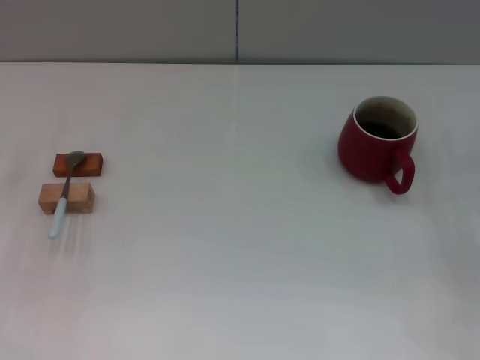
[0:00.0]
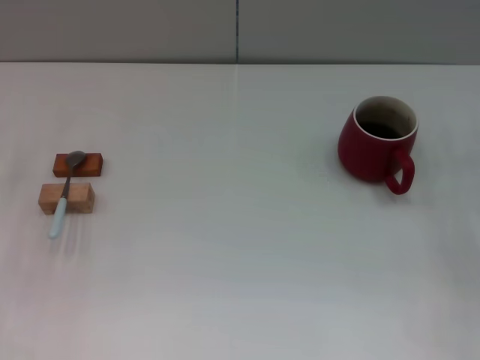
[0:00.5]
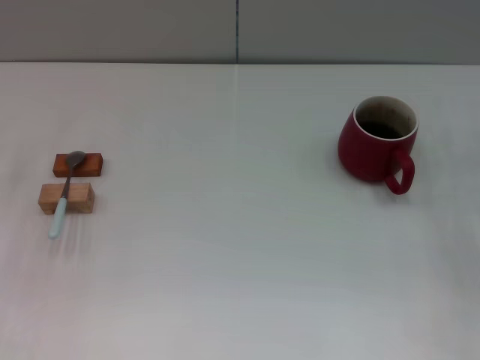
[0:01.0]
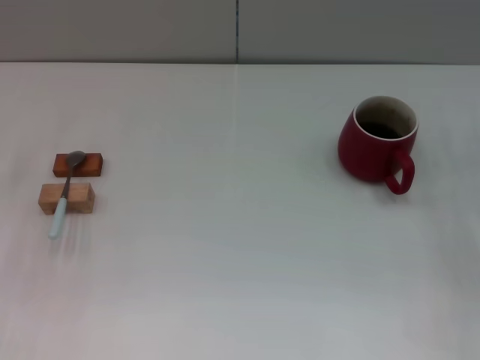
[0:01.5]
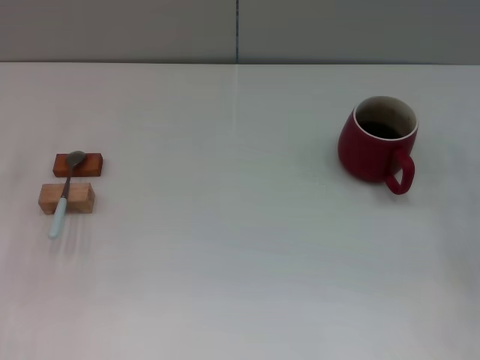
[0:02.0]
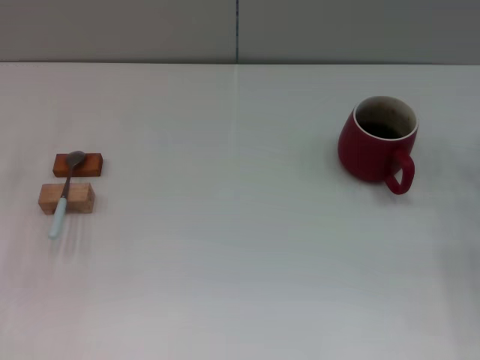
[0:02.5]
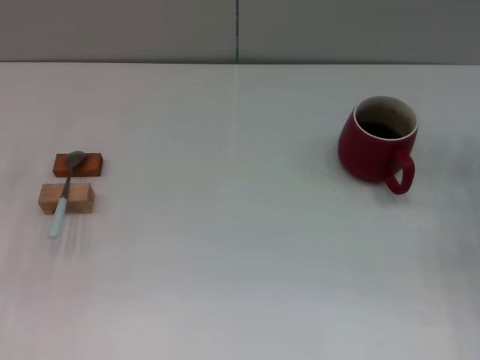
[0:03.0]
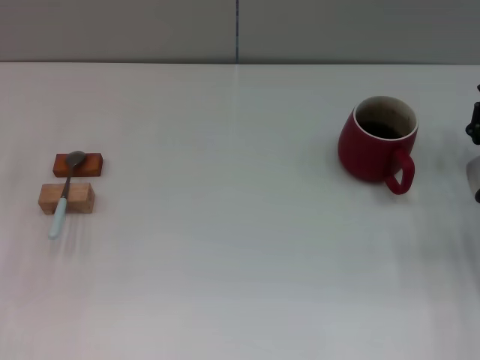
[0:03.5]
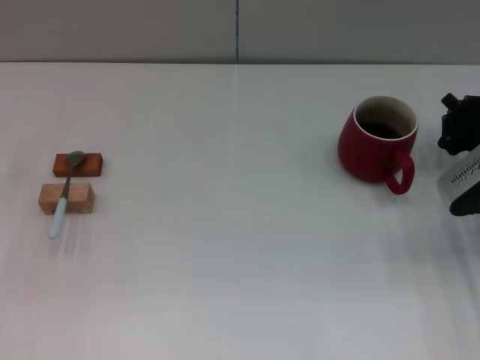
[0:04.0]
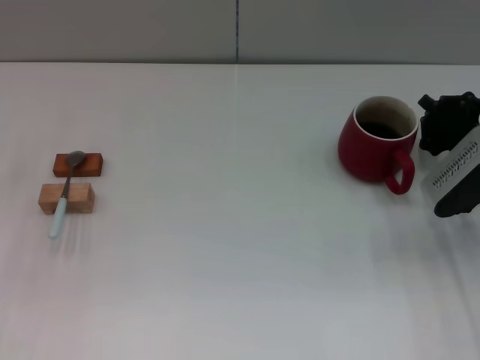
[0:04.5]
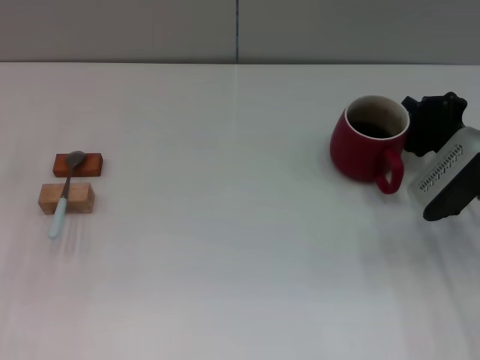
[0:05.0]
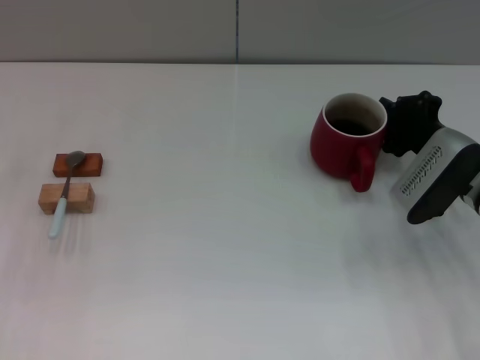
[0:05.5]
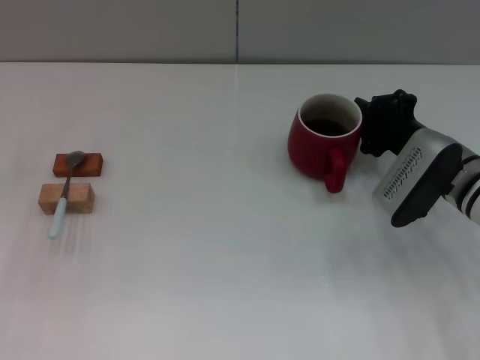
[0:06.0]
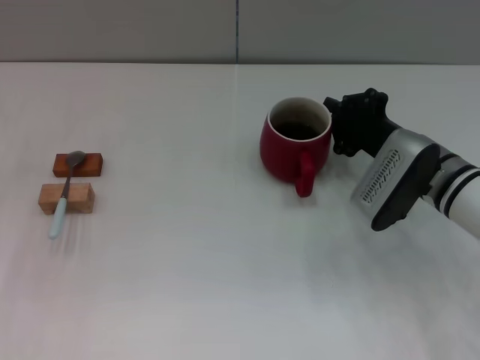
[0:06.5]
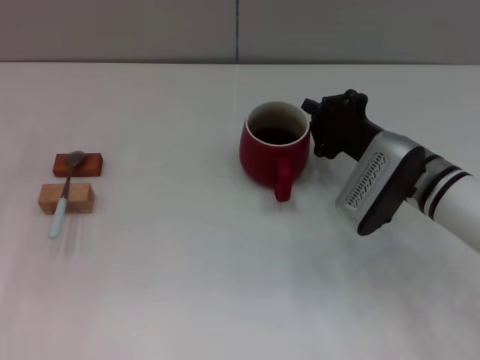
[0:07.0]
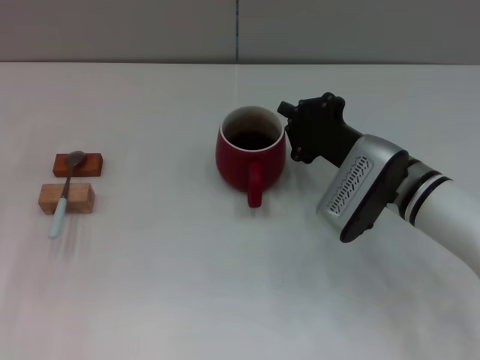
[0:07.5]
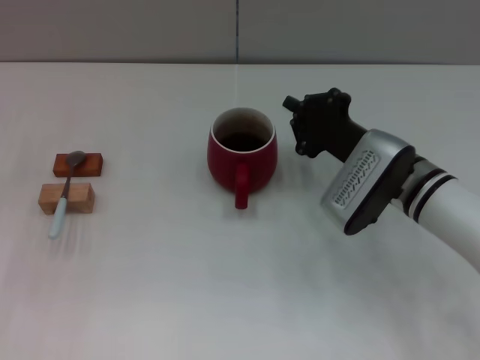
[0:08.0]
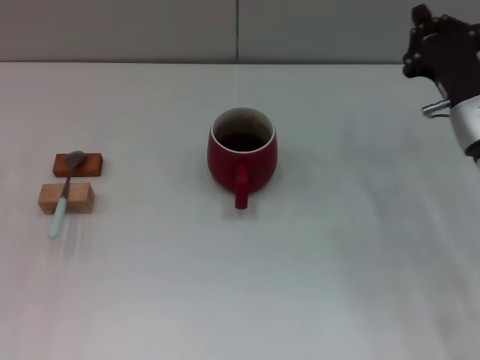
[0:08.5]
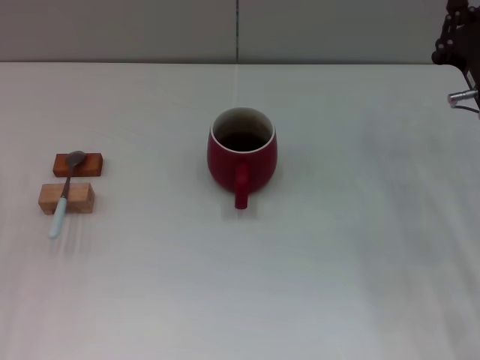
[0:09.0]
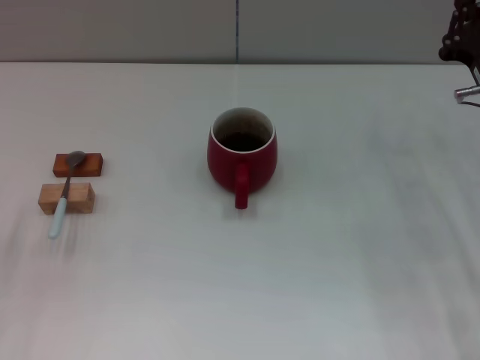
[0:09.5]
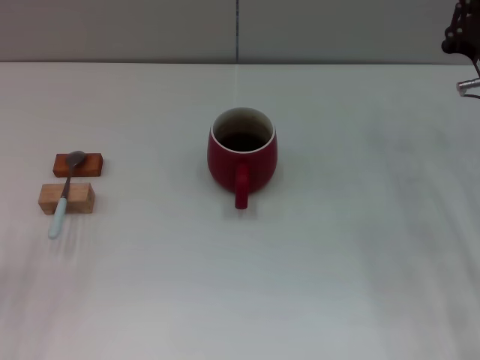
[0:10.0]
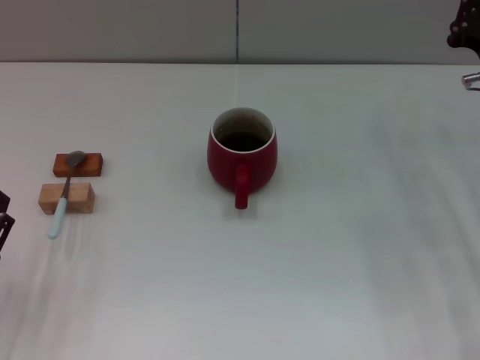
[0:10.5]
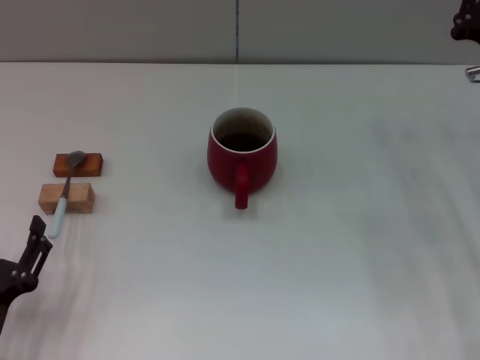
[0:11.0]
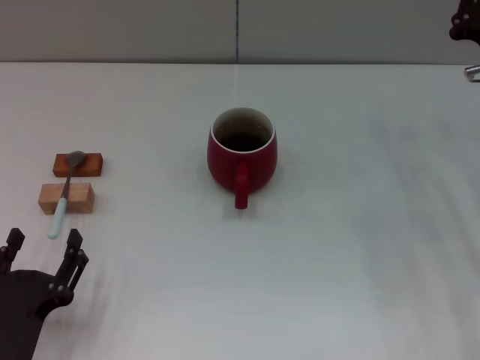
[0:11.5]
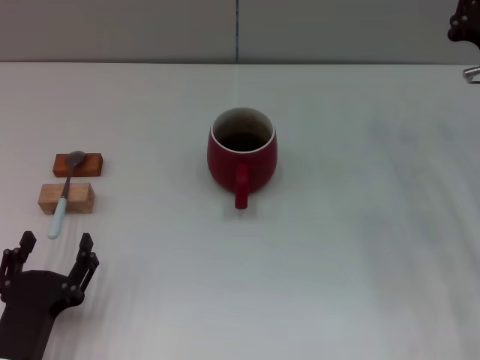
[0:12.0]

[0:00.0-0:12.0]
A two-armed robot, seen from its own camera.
Task of the whole recording: Move the red cup to the center, lift the blue spoon, stir it three times in the cup, and put the spoon into the cup.
Step, 0:00.0 to 0:08.0: Move the cup with coffee to the center of view with the right gripper.
0:02.0 to 0:04.0: The right gripper shifts approximately 5 cm to the left, and closes its fingers.
0:04.0 to 0:06.0: The right gripper is displaced to the left by some 5 cm.
0:06.0 to 0:08.0: The right gripper travels to the left by approximately 5 cm.
0:08.0 to 0:10.0: The right gripper goes about 10 cm to the right. The left gripper heads backward and downward, covering approximately 15 cm.
0:10.0 to 0:12.0: The left gripper is displaced to the right by some 10 cm.

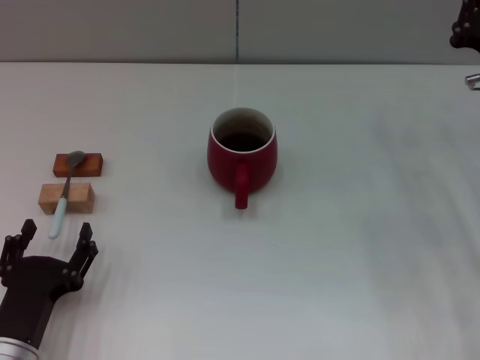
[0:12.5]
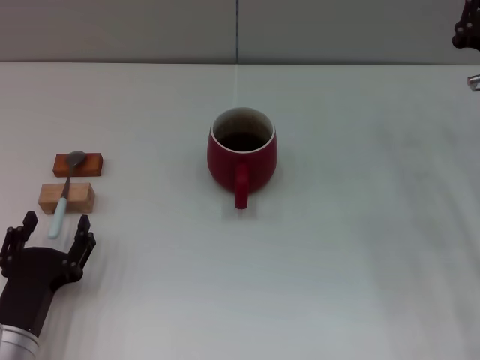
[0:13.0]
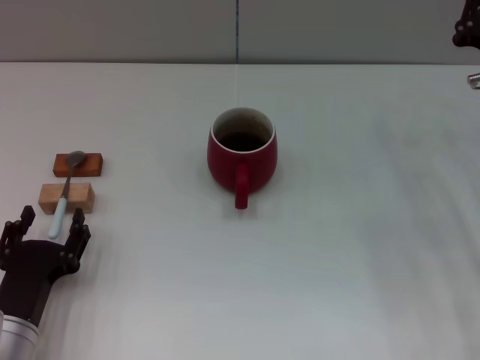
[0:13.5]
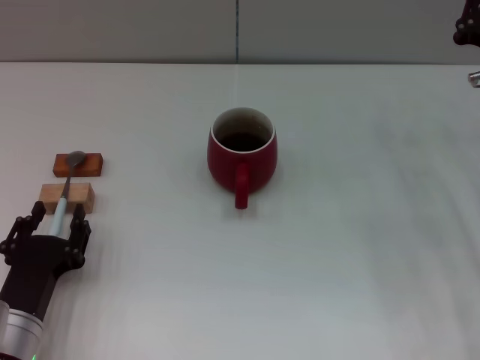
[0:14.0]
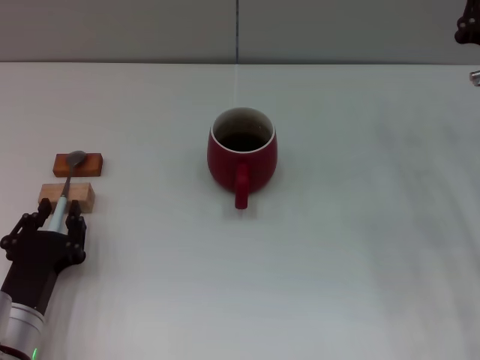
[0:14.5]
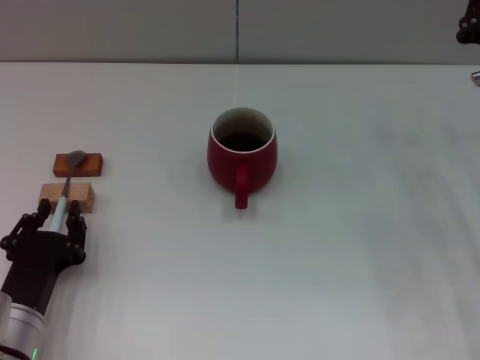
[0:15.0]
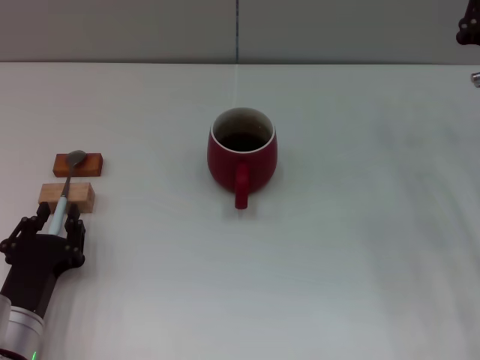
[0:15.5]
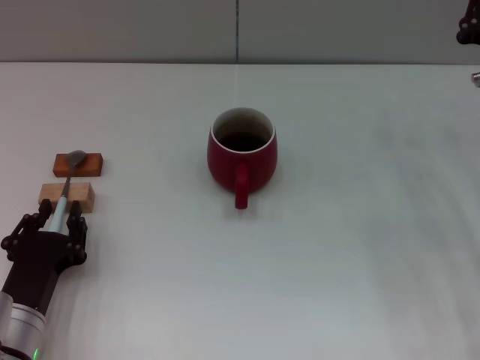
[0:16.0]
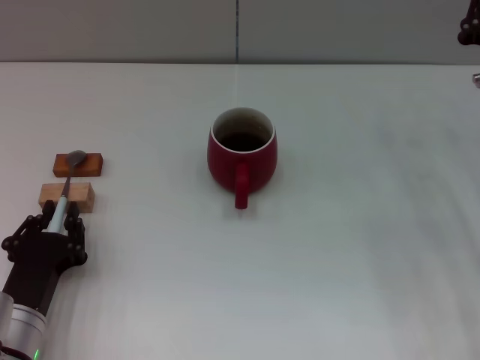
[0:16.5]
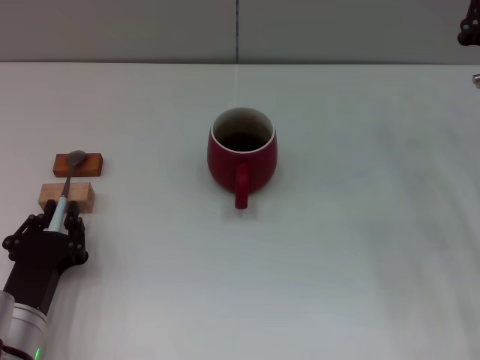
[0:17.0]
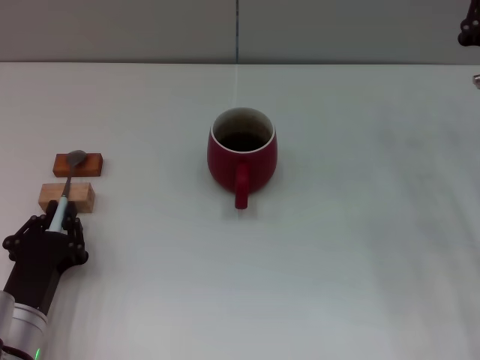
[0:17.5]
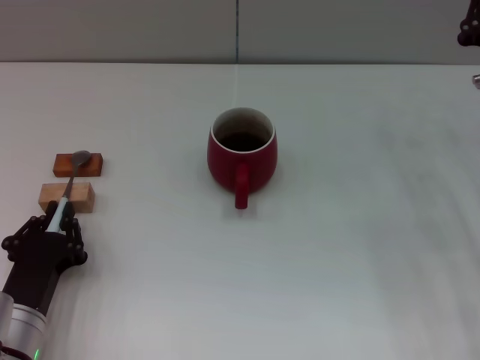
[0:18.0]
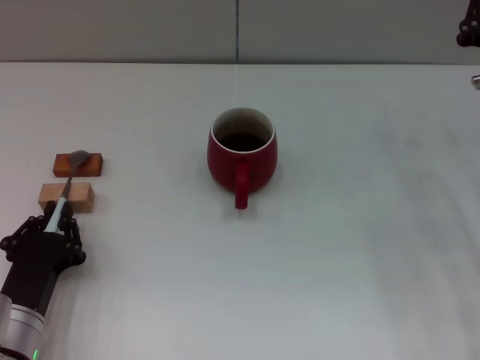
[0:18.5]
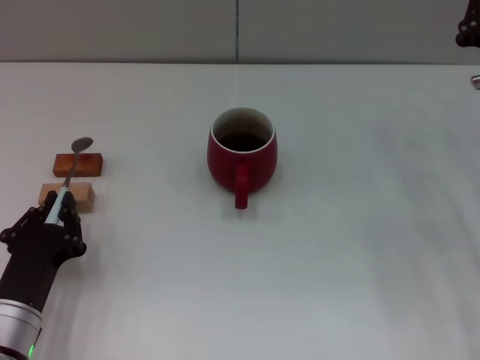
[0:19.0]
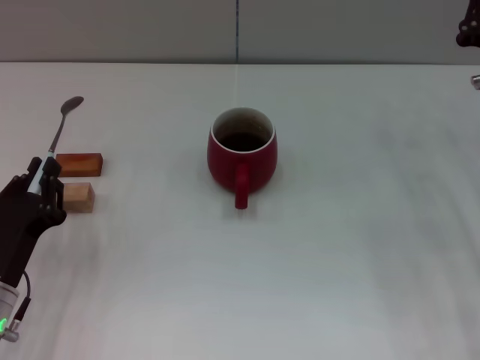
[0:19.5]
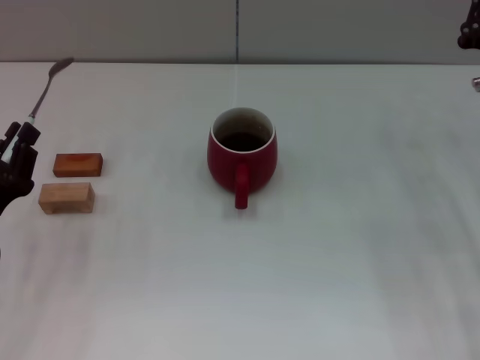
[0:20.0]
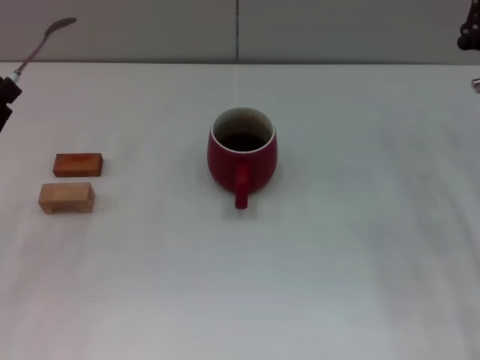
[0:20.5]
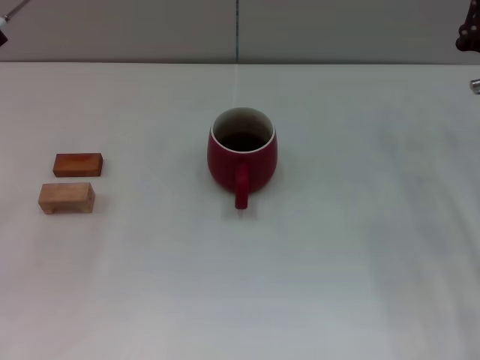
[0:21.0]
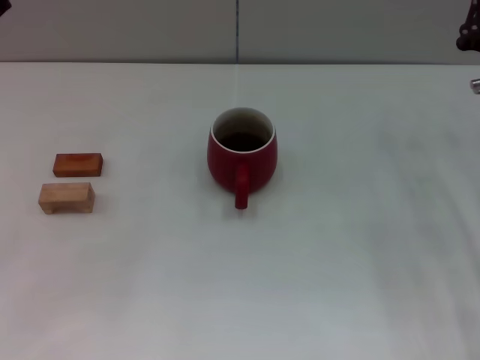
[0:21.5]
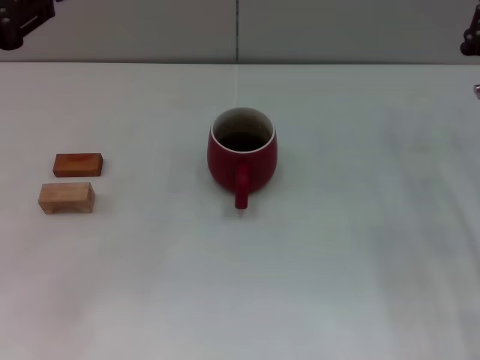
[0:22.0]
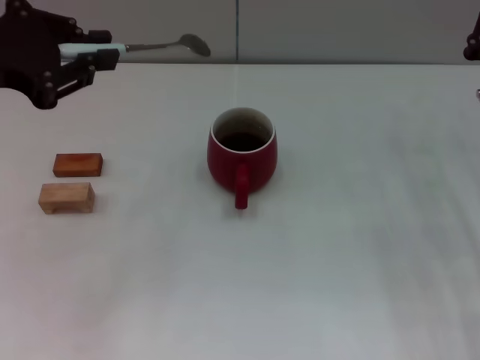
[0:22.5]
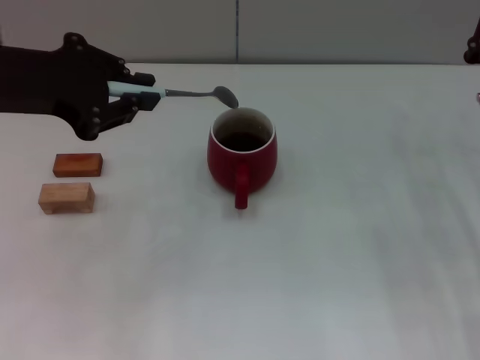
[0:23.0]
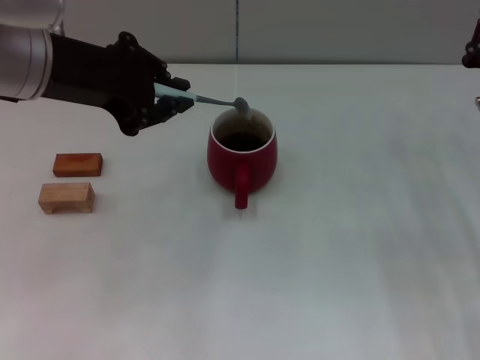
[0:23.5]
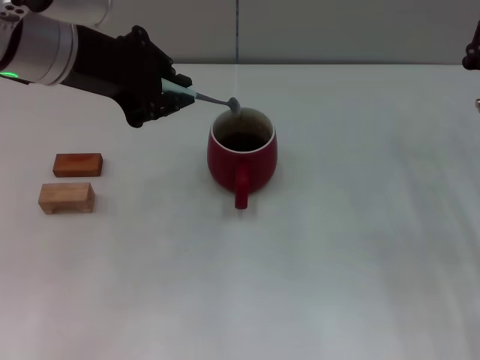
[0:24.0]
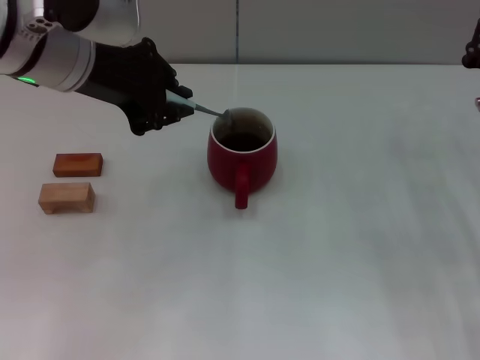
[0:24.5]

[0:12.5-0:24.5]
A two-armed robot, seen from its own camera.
Task of the whole recording: Move the red cup to the center, lift the blue spoon, stir it three times in the cup, and put the spoon into the cup.
Step, 0:12.5 to 0:19.5: Pick up the spoon with the left gripper.
0:12.5 to 0:14.5: The left gripper closes its fingers.
0:14.5 to 0:18.5: The two grippers keep their place.
0:18.5 to 0:20.5: The left gripper is displaced to the left, upward and forward by some 15 cm.
0:20.5 to 0:22.5: The left gripper goes approximately 15 cm upward.
0:22.5 to 0:24.5: The left gripper is displaced to the right by approximately 10 cm.

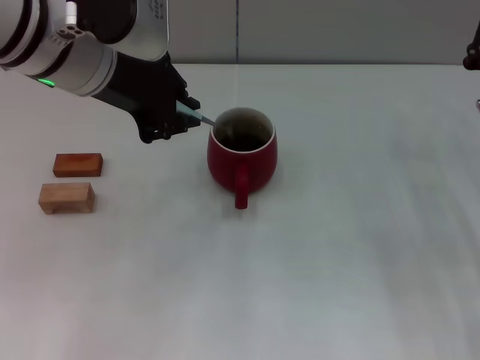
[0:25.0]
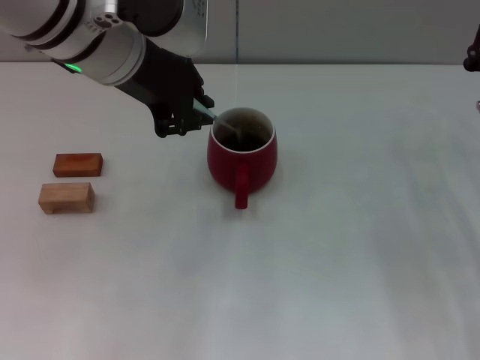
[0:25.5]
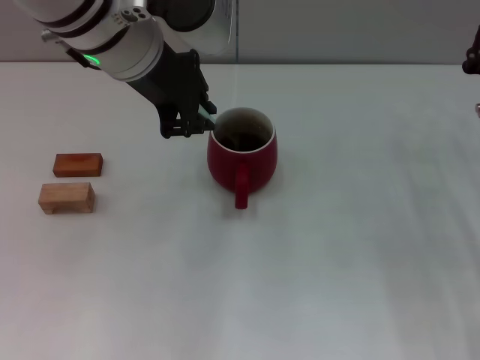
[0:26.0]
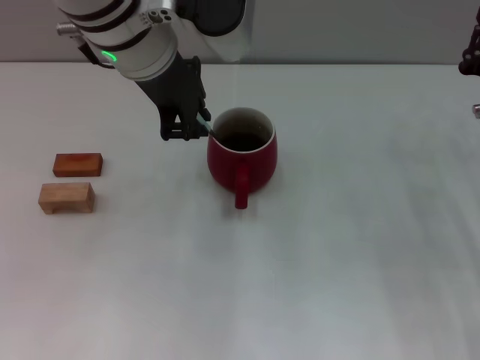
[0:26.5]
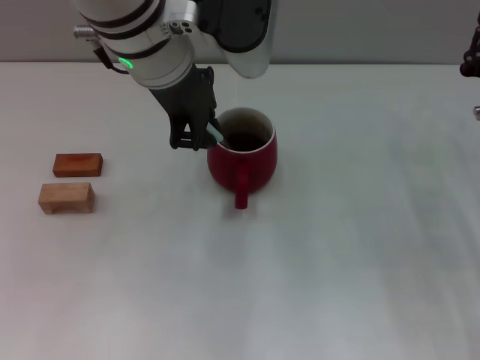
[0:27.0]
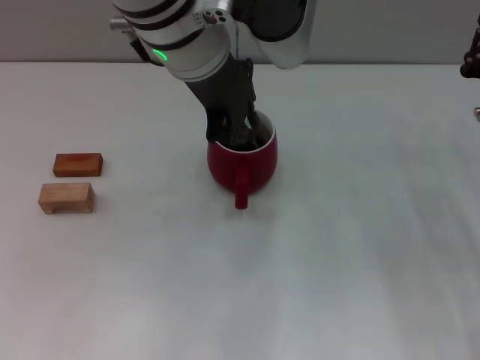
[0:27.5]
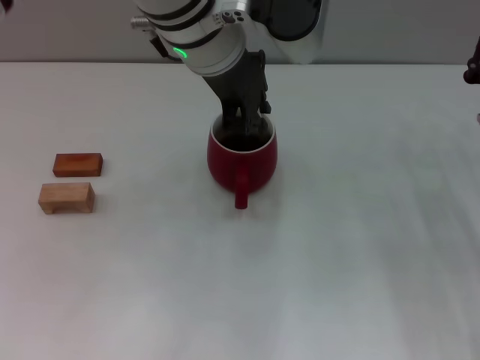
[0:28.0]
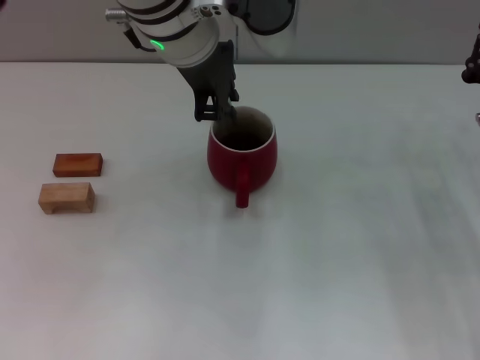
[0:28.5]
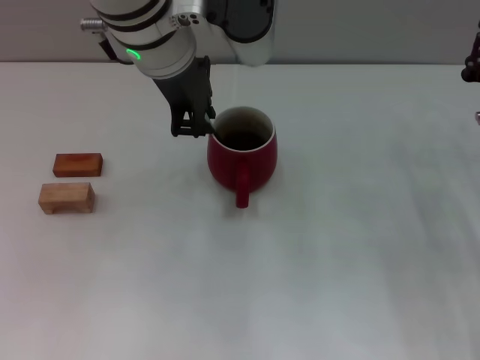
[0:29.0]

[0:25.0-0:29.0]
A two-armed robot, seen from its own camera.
Task of the whole recording: Move the red cup to the center, lift the blue spoon, stir it three times in the cup, and put the spoon into the cup.
0:25.0 to 0:27.0: The left gripper is displaced to the right by some 5 cm.
0:27.0 to 0:29.0: The grippers move only a little.
